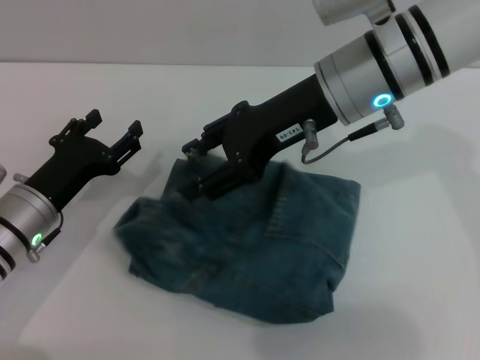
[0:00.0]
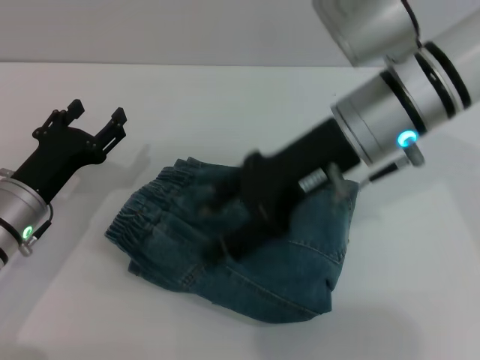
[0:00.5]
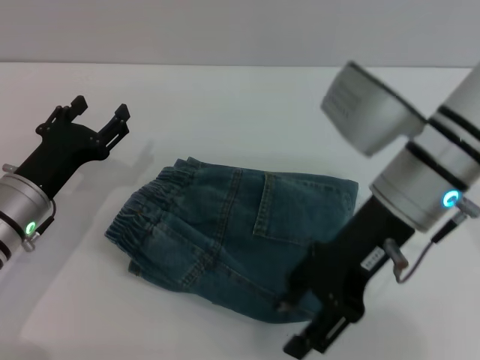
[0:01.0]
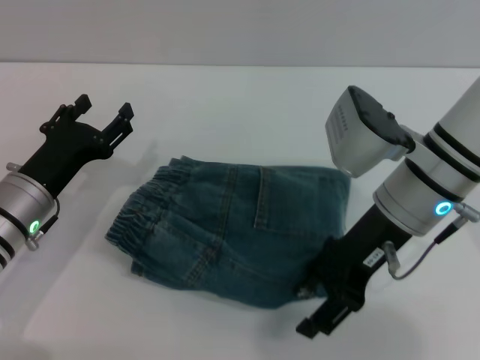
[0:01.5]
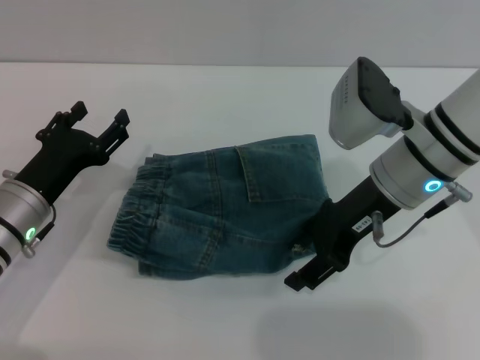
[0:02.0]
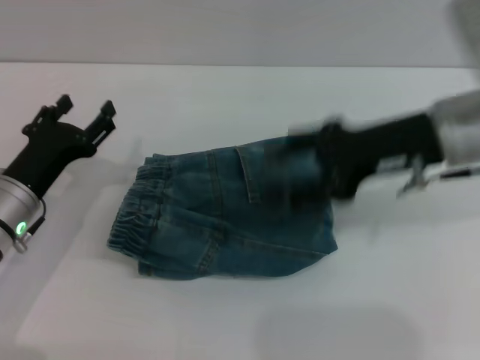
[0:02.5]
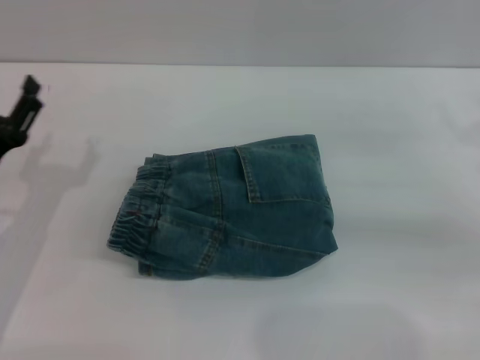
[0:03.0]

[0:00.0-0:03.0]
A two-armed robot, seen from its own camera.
0:00.0 to 0:01.5: The right gripper goes about 5 cm downward.
0:01.5 to 0:03.0: The right gripper shifts some 20 cm to the right; the left gripper shifts by some 5 cm.

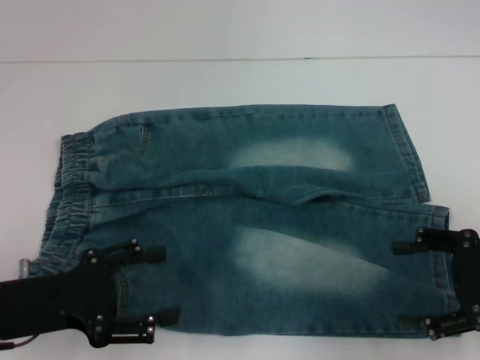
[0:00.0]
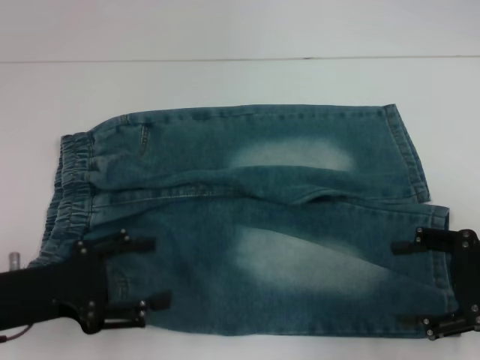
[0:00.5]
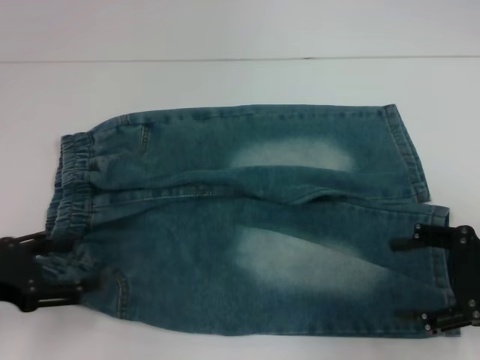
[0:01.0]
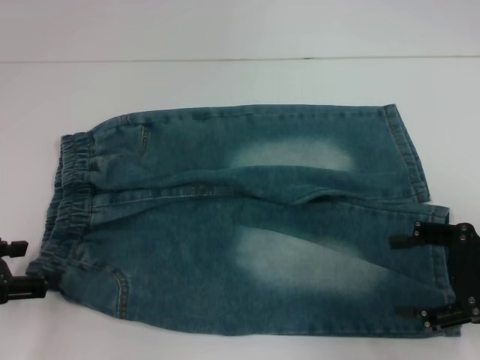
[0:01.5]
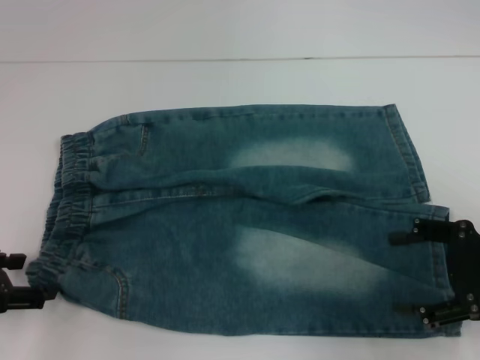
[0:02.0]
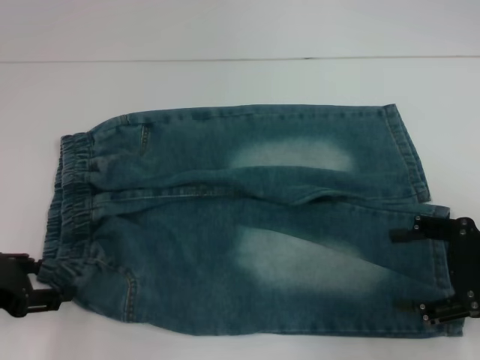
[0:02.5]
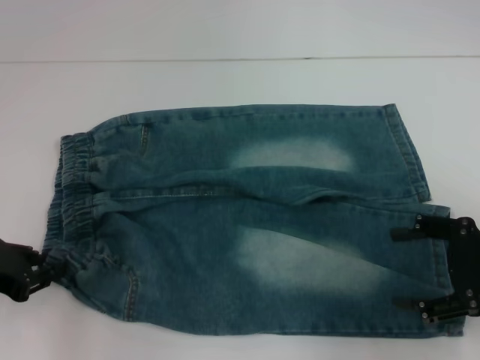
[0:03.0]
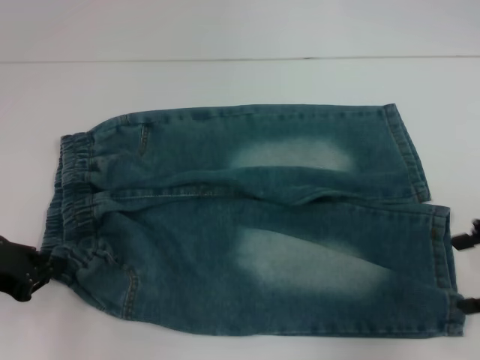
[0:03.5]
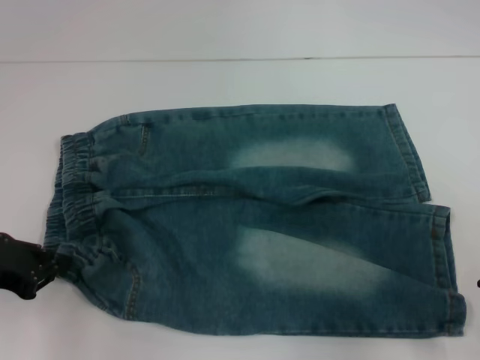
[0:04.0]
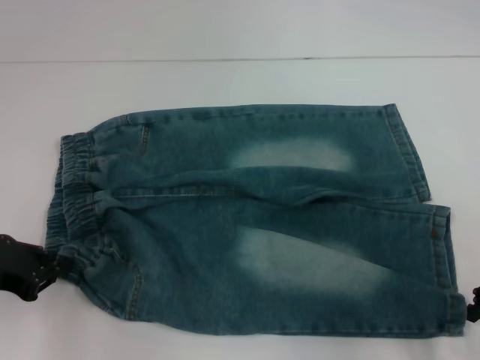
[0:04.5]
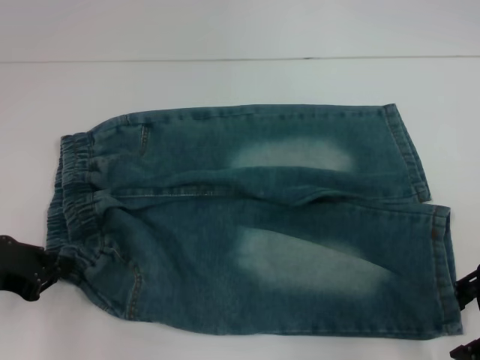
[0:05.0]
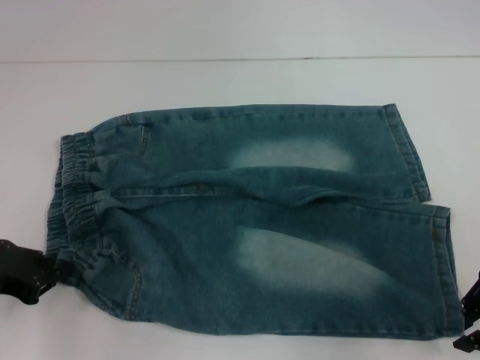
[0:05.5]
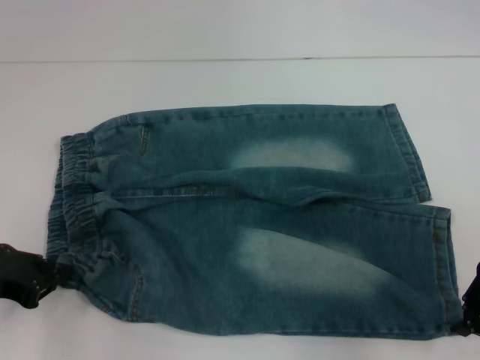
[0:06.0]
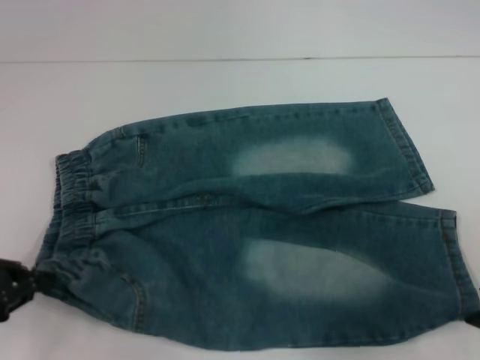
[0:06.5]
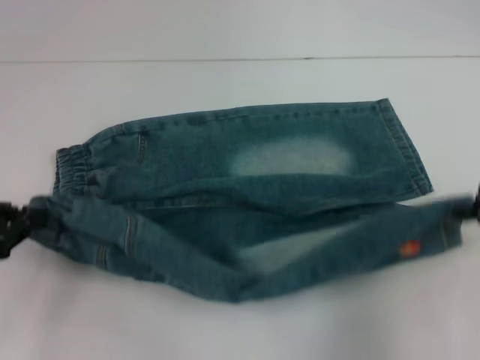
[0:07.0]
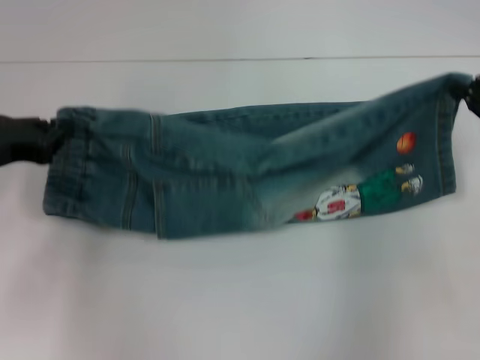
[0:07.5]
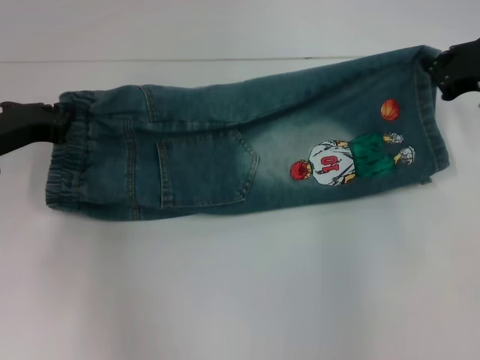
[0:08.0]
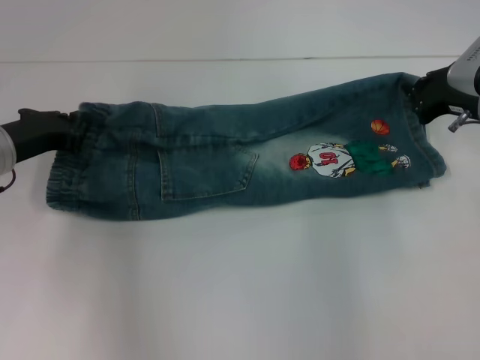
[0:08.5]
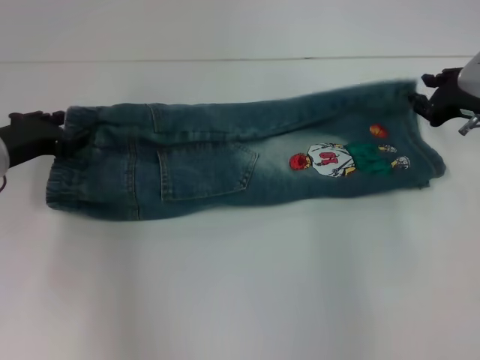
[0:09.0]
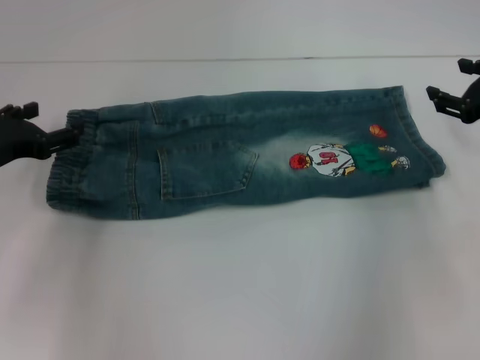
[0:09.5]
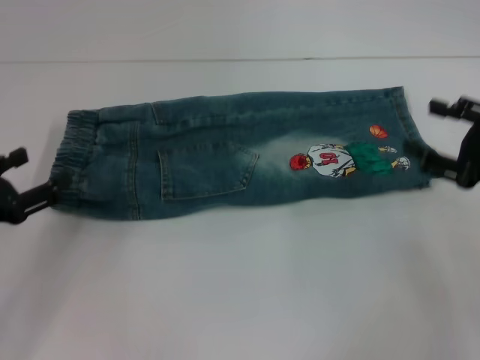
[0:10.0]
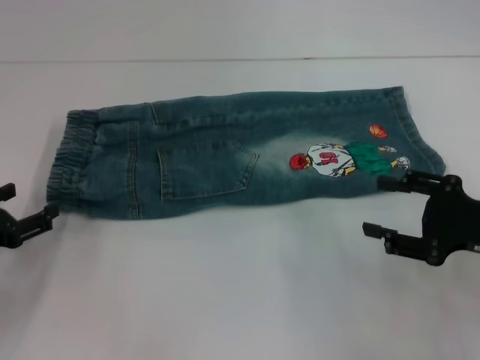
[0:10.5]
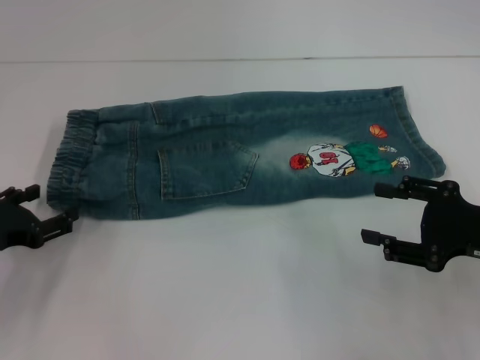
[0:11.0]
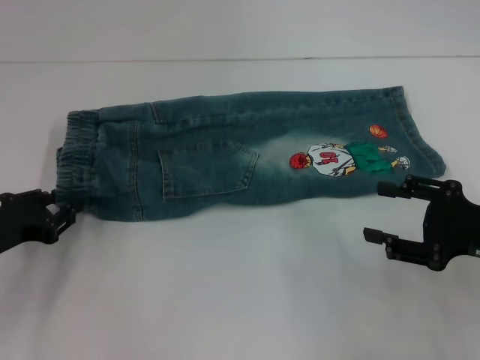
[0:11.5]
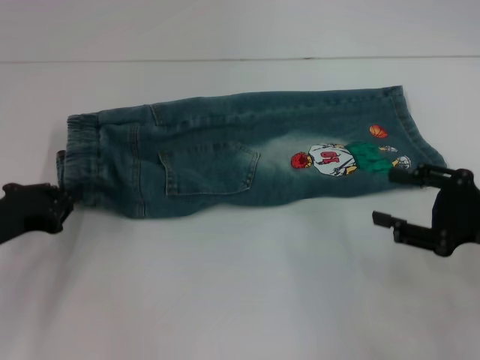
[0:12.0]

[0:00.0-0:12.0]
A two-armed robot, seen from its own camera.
Step, 0:00.0 to 0:03.0: Hold the lower left waistband with your left hand.
Step, 0:03.5 to 0:05.5: Grab the lower right pant leg with your right hand.
Step, 0:06.0 to 0:09.0: Fold upward with your right hand.
Step, 0:09.5 to 0:11.0: Hold the waistband with your left hand.
0:00.0 to 0:02.0: The left gripper is displaced to the left by about 5 cm.
0:02.0 to 0:04.0: The left gripper closes up. Meanwhile the right gripper goes approximately 5 cm upward.
0:04.0 to 0:06.0: The right gripper closes up.
0:06.0 to 0:08.0: Both grippers travel together forward, approximately 10 cm.
0:08.0 to 0:10.0: The grippers both shift backward by about 10 cm. The left gripper opens up, while the right gripper opens its fingers.
0:10.0 to 0:12.0: The left gripper closes its fingers.

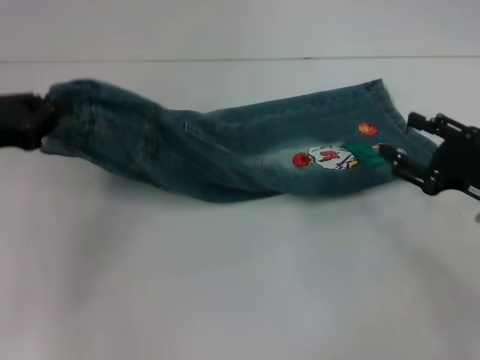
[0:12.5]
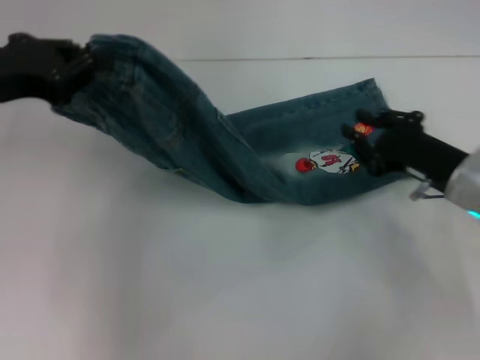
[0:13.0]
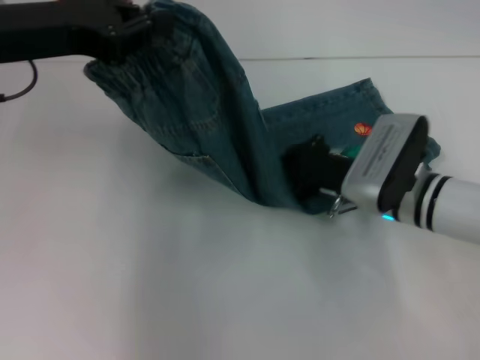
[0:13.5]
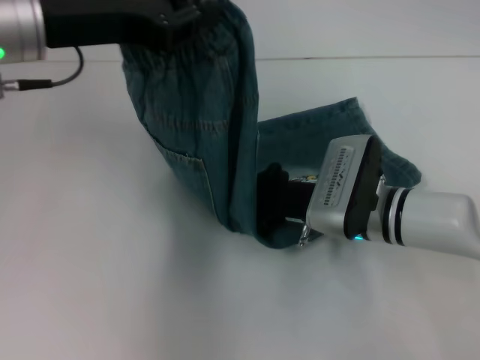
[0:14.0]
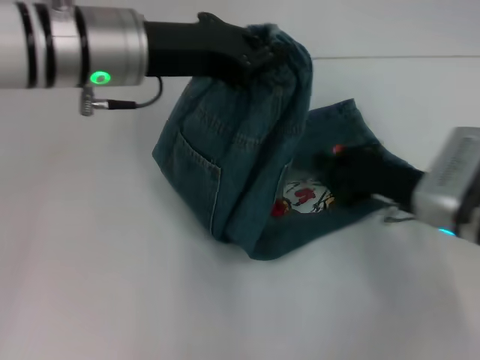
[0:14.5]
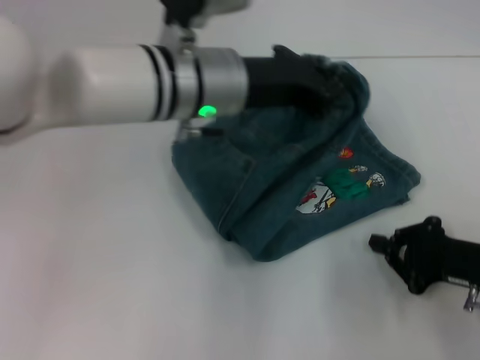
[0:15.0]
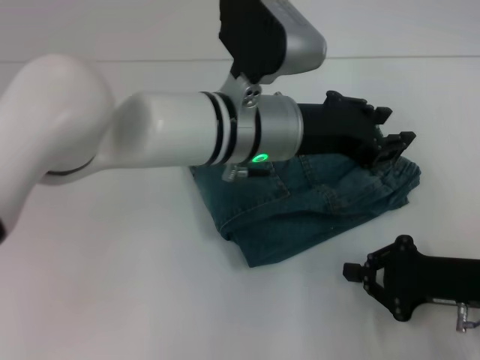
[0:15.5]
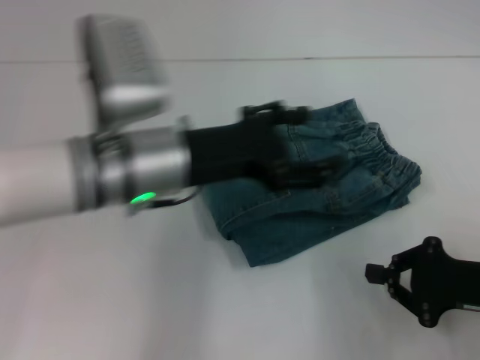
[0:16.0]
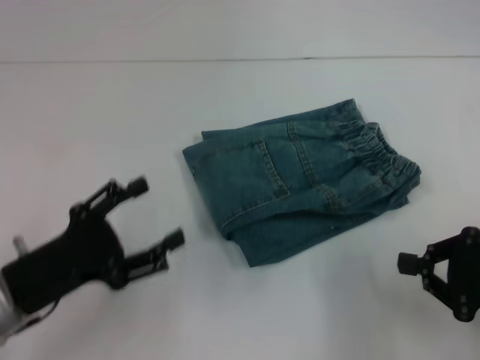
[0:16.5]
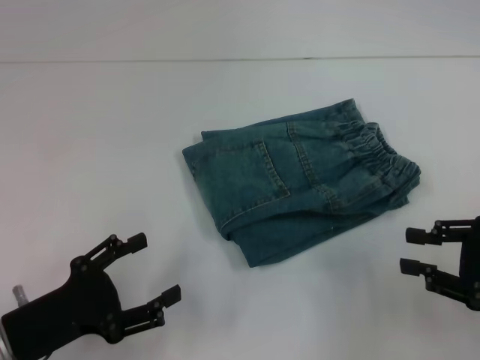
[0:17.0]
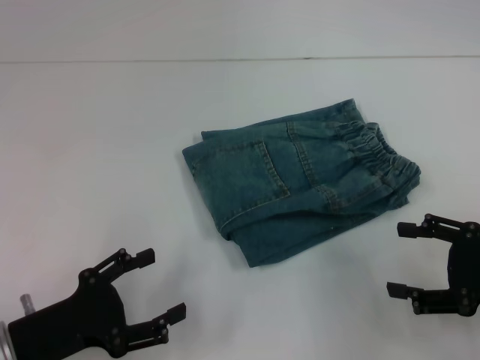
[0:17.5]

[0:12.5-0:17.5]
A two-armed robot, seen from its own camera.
Step, 0:12.5 to 0:14.0: Press the middle of the pants with your right hand.
Step, 0:14.5 to 0:15.0: Fold to the right with your left hand.
0:12.5 to 0:15.0: The right gripper travels to the left and back again, roughly 15 cm each way, and closes up. Meanwhile the left gripper moves to the right, roughly 25 cm.
0:15.0 to 0:17.5: The left gripper is displaced to the left, backward and downward by roughly 30 cm, and opens its fingers; the right gripper shifts roughly 5 cm upward, and opens.

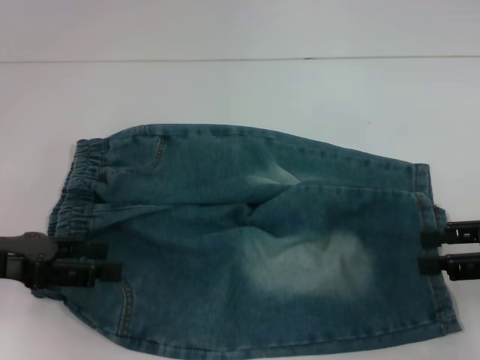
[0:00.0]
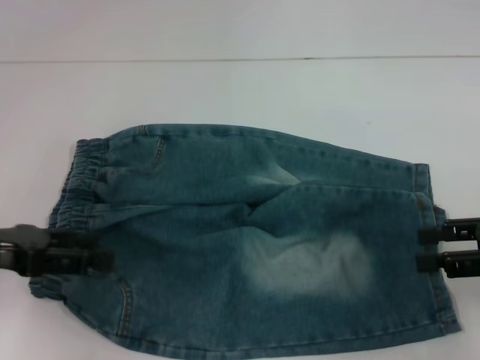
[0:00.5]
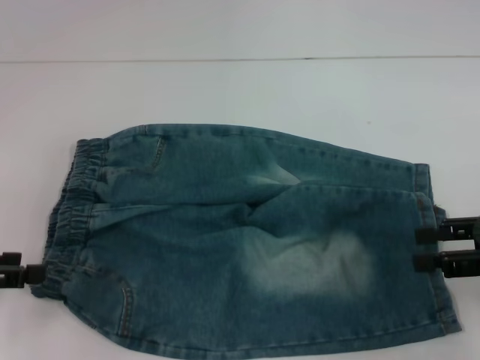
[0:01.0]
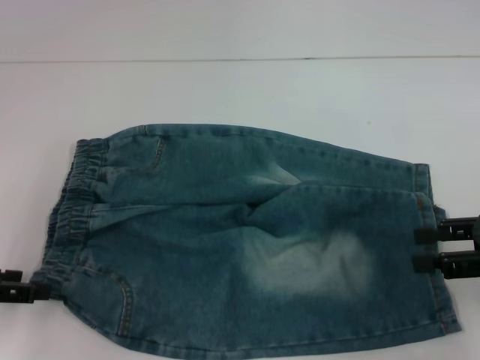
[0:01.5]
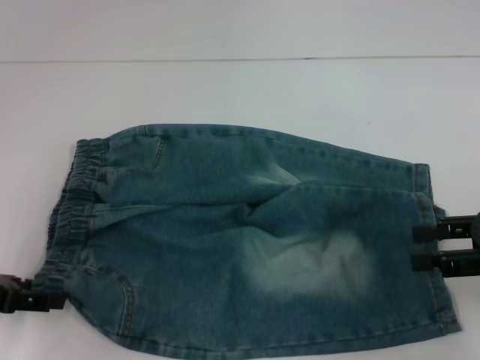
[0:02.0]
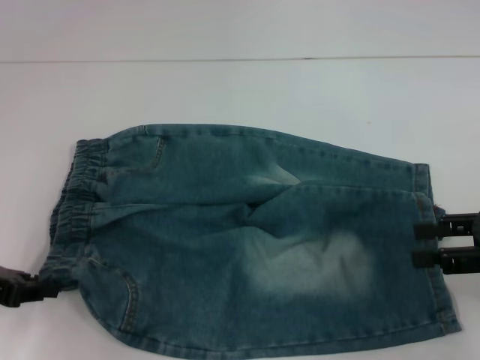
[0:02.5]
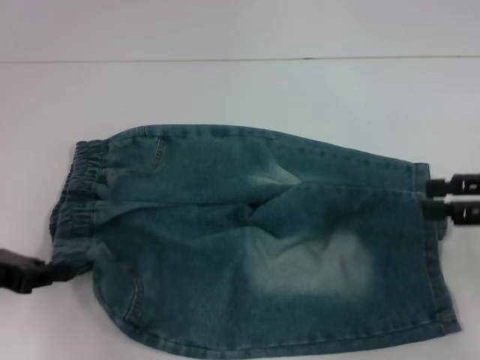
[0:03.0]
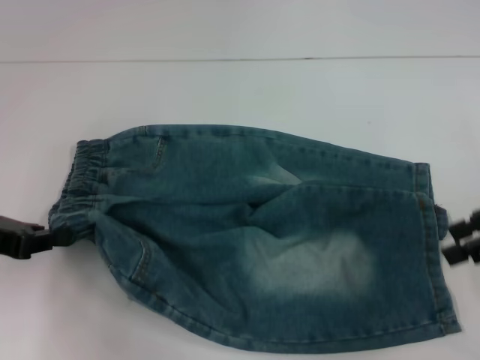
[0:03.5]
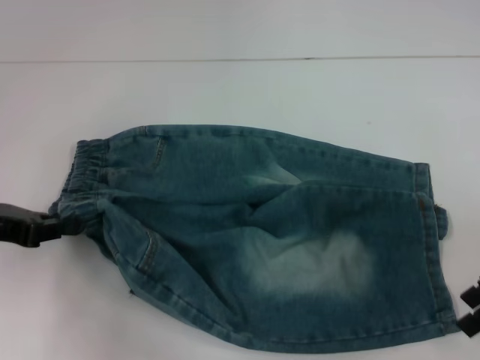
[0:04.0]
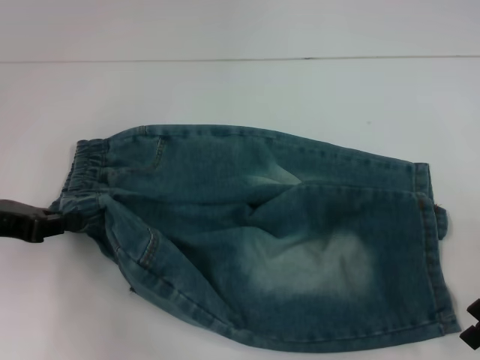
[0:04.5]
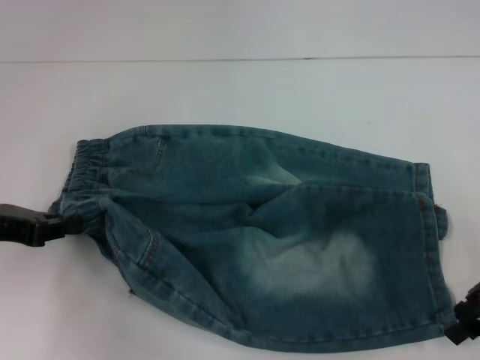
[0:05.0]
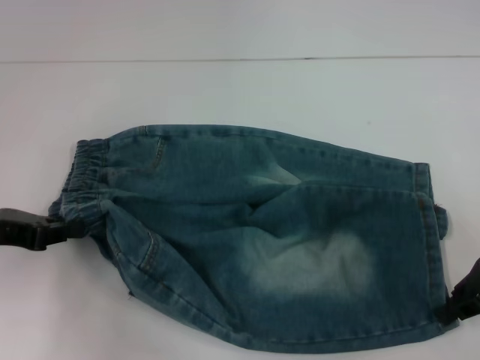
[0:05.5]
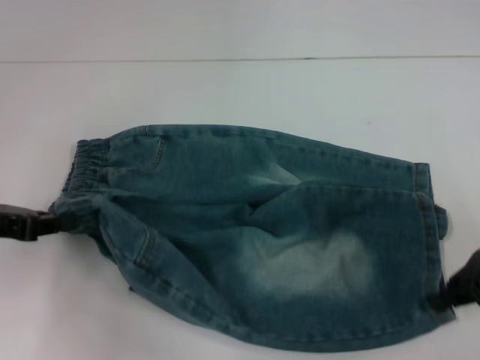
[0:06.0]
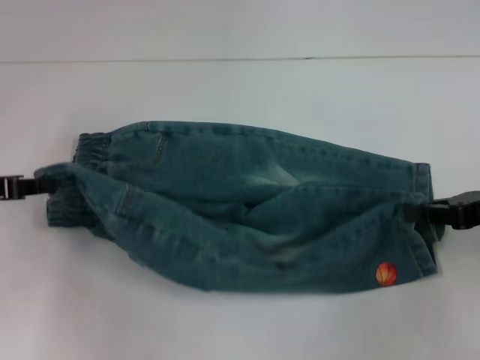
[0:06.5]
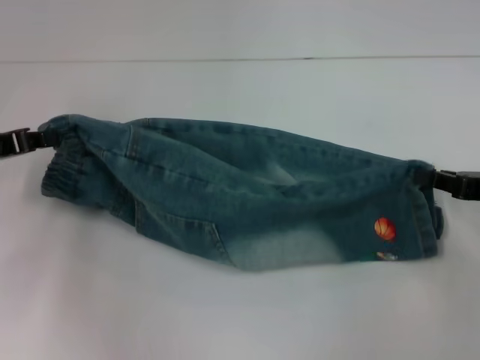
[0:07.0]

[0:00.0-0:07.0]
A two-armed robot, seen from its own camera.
Step, 0:00.0 to 0:03.0: Hold the lower left waistband with your left hand.
Step, 0:03.5 to 0:06.0: Grab the lower right pant leg with your right hand.
0:02.0 to 0:03.5: The left gripper closes up. Meanwhile the right gripper travels upward by some 5 cm.
0:03.5 to 0:05.0: The right gripper moves downward, about 5 cm.
0:05.0 to 0:07.0: The right gripper moves roughly 5 cm, and closes.
